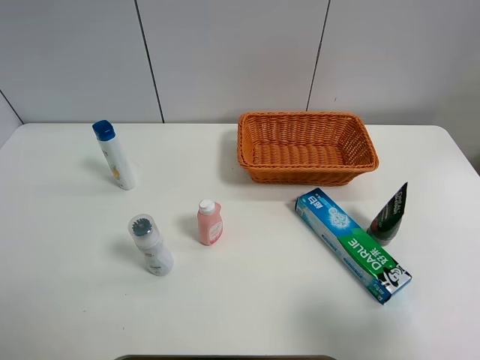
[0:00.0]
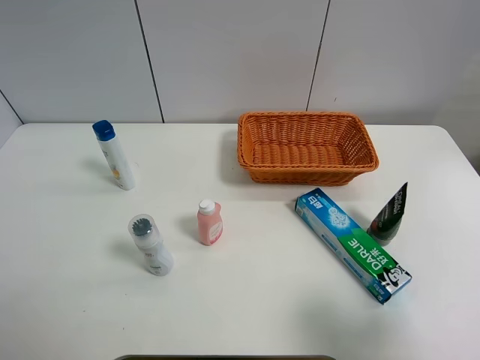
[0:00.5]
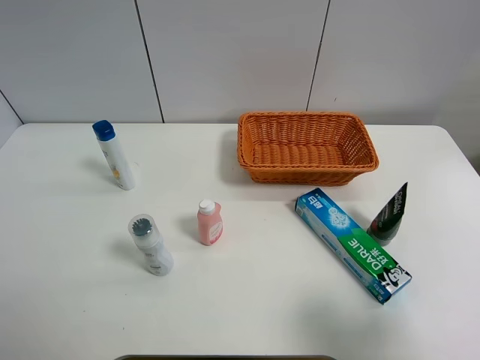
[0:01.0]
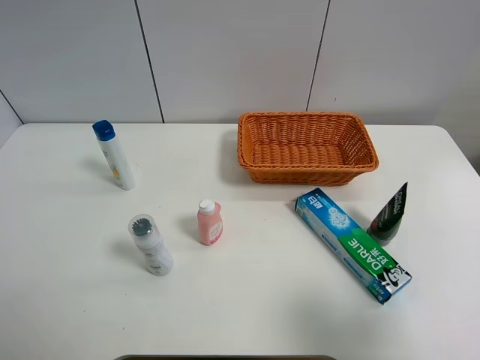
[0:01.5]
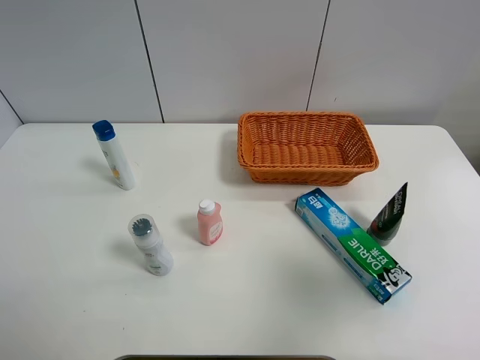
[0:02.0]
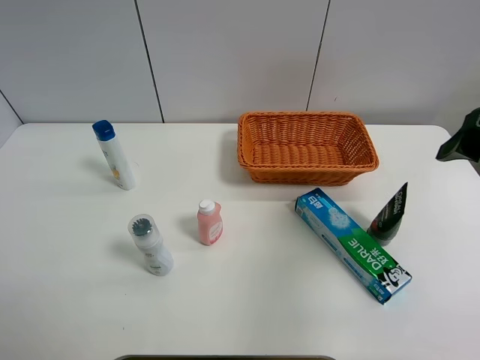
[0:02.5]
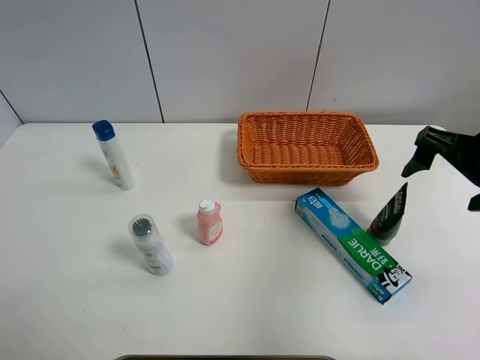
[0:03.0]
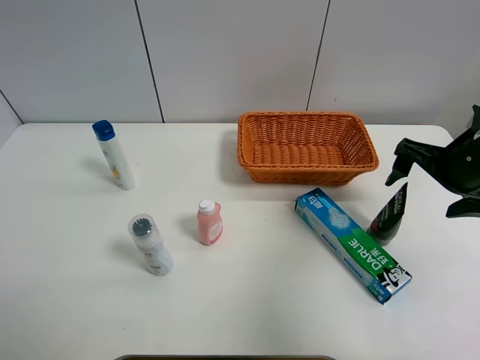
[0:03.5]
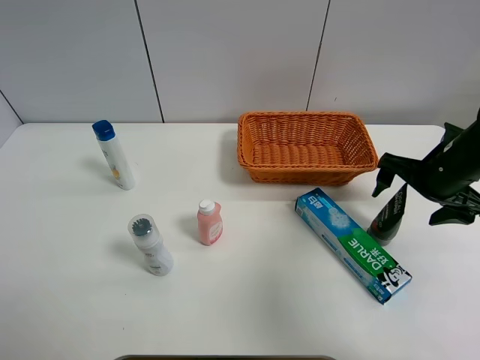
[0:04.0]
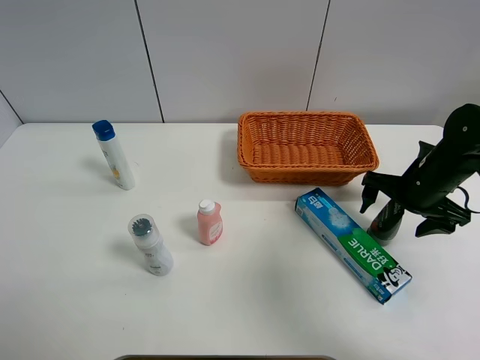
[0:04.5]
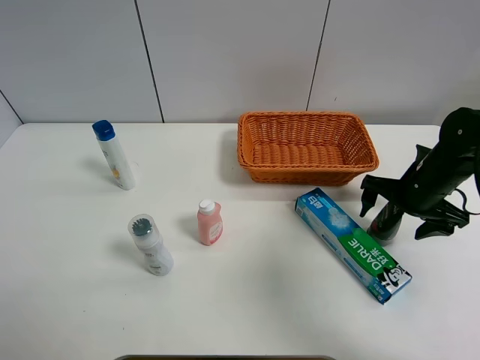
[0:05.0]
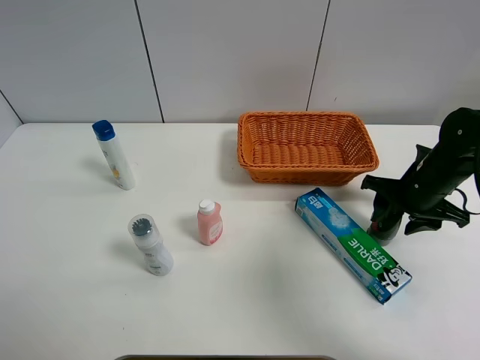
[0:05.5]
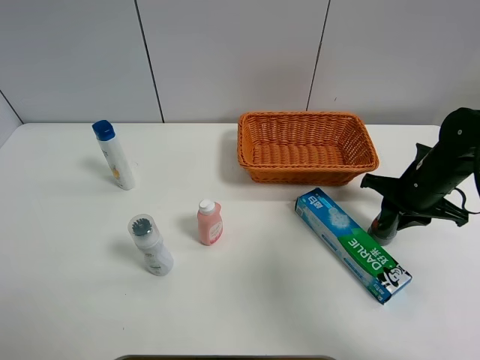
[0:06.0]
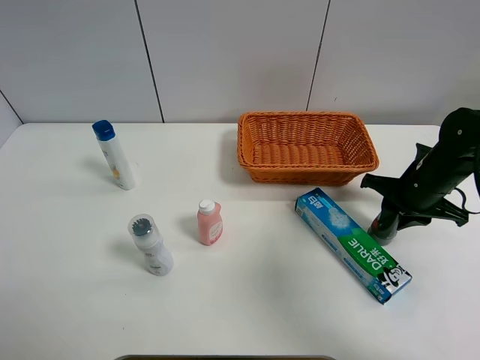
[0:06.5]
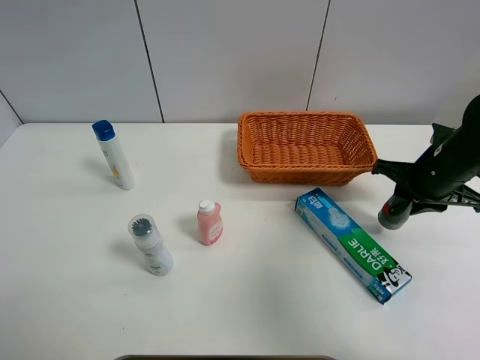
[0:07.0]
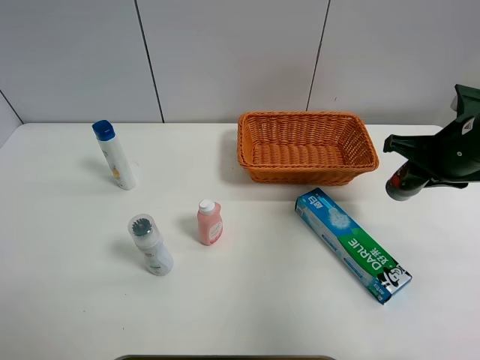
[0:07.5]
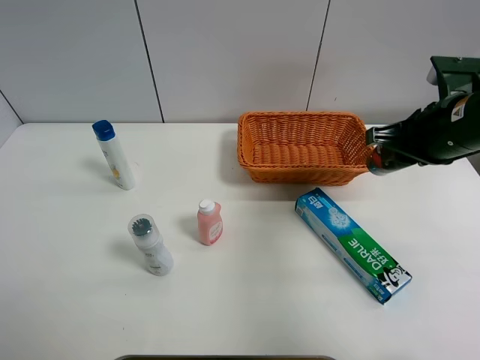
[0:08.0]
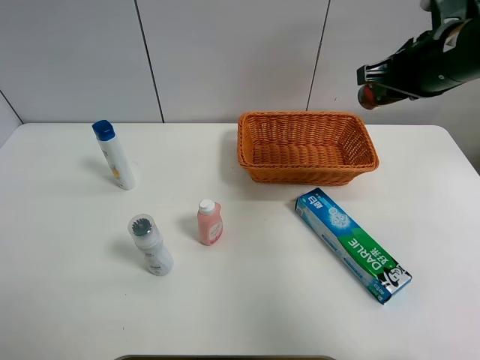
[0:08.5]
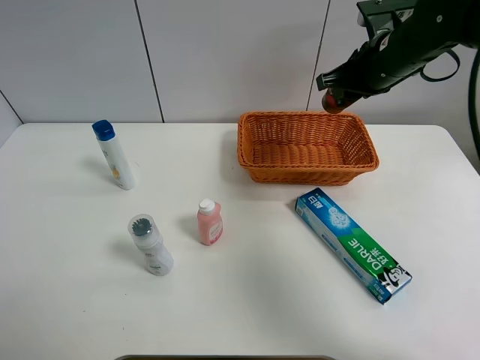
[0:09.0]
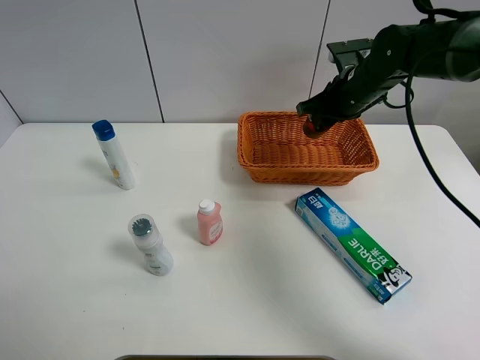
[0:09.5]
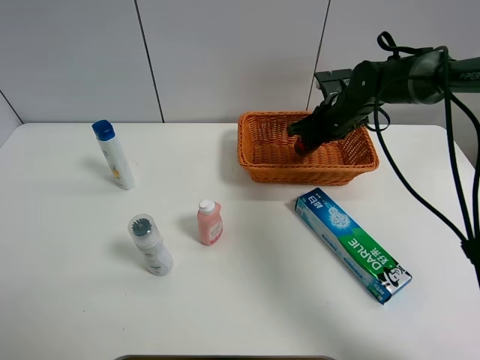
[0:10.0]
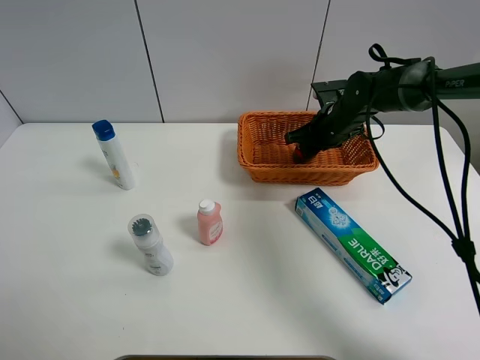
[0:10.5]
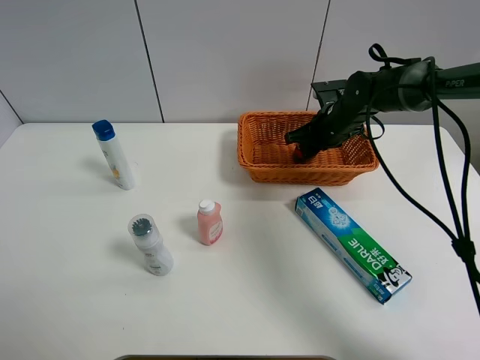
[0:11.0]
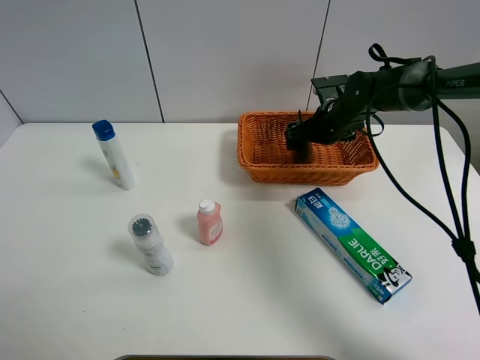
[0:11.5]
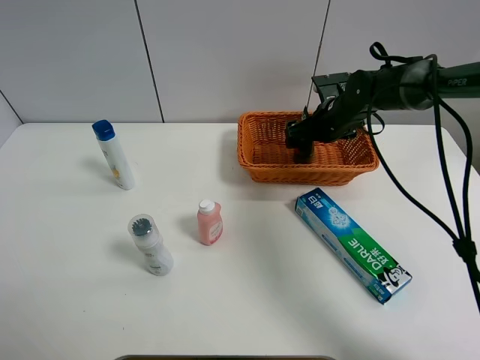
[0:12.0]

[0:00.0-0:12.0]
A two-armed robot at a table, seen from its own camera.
Task of the whole recording: Place the object closest to the toothpaste in the basket.
Step, 0:00.0 to 0:05.5: Grasp the soft facial cleanser with right gripper.
0:00.0 to 0:02.0: The right gripper is displaced upward and forward by some 10 cm.
0:02.0 to 0:04.0: The right gripper is displaced forward and downward by about 25 cm.
0:04.0 to 0:06.0: The right gripper closes up.
0:06.0 to 0:08.0: The right gripper shifts some 15 cm upward.
0:08.0 to 0:10.0: The right gripper travels forward and downward by approximately 20 cm.
0:10.0 to 0:12.0: The right gripper opens its fingers.

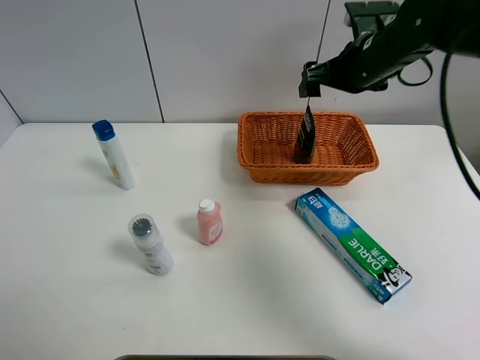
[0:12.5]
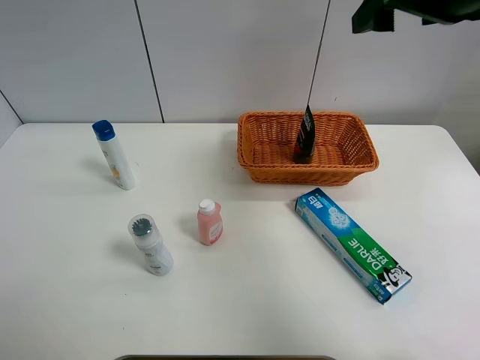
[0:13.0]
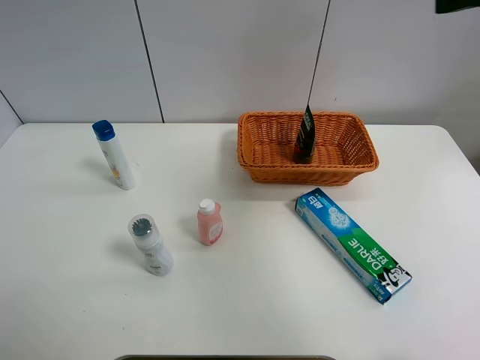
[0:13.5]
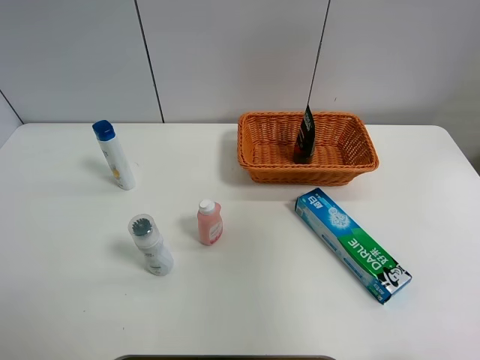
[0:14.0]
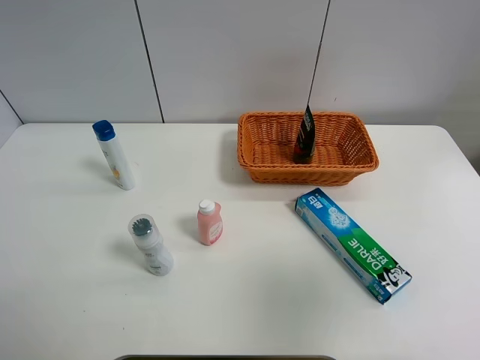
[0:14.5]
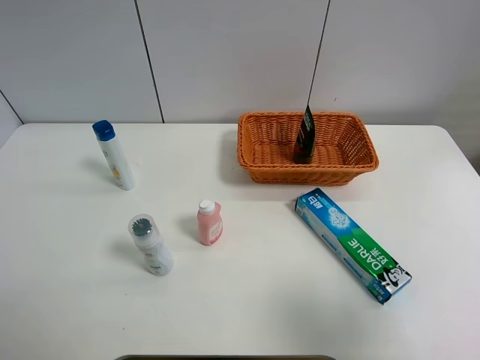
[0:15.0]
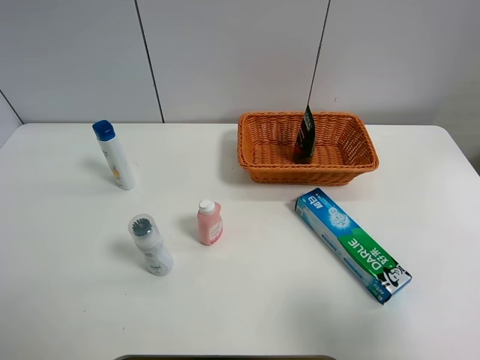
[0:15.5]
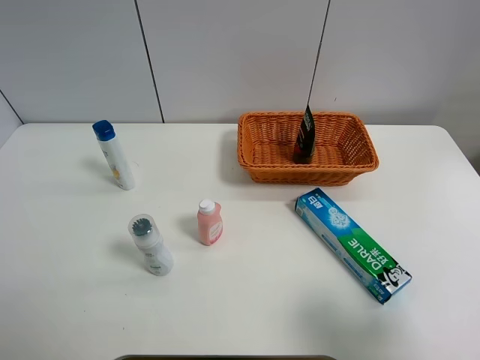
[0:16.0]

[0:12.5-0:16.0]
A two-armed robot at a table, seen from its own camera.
Task of the whole recording: Place the object closest to the toothpaste in the basket.
0:12.5 to 0:14.5: The right gripper is displaced backward by roughly 35 cm.
0:14.5 to 0:16.0: The right gripper heads downward, covering about 10 cm.
